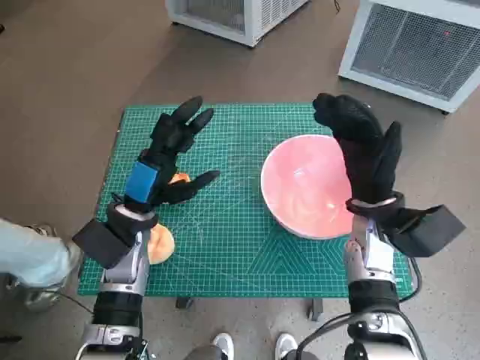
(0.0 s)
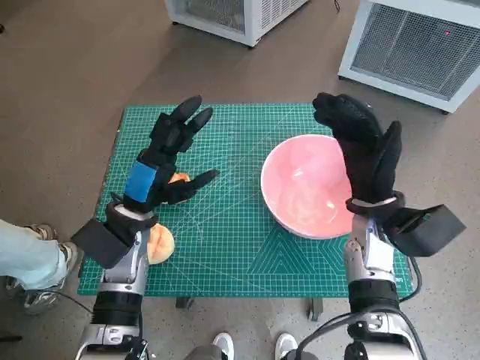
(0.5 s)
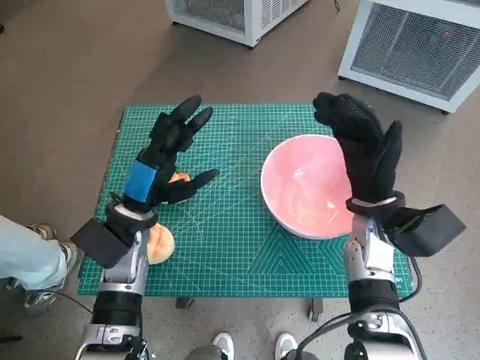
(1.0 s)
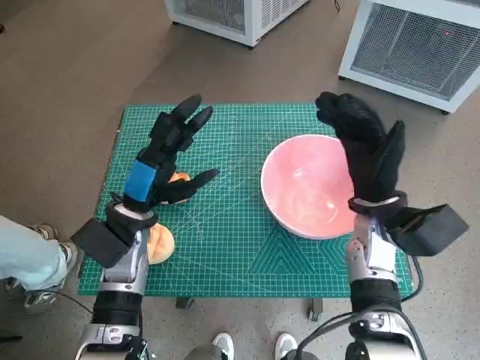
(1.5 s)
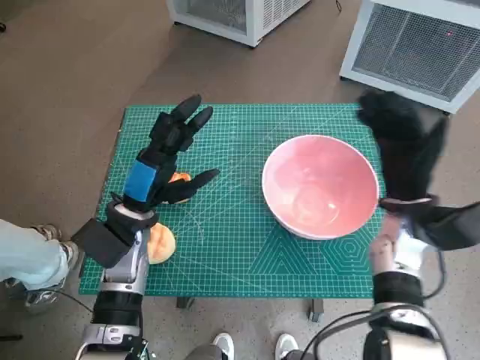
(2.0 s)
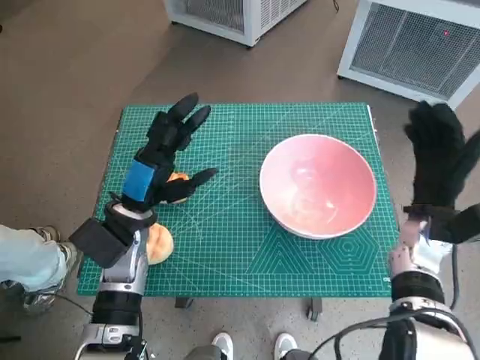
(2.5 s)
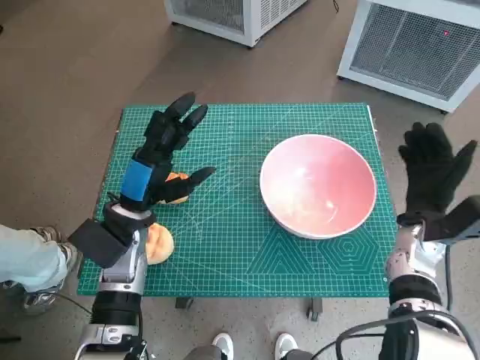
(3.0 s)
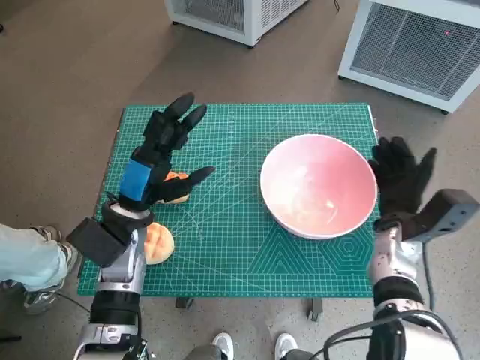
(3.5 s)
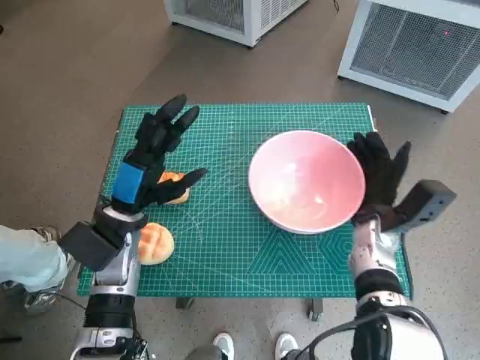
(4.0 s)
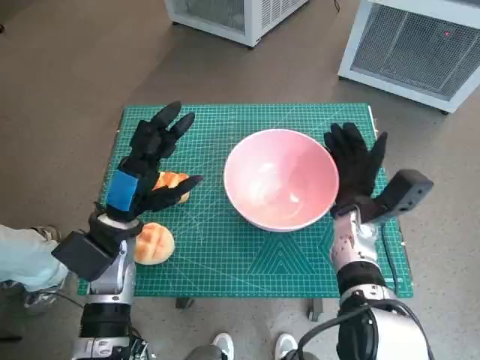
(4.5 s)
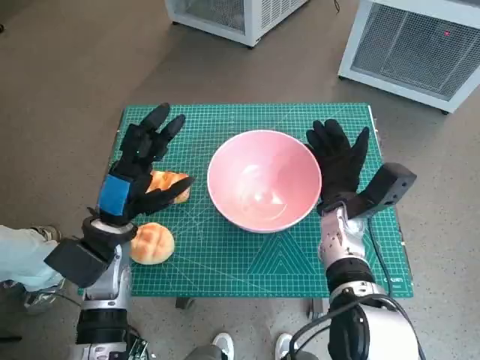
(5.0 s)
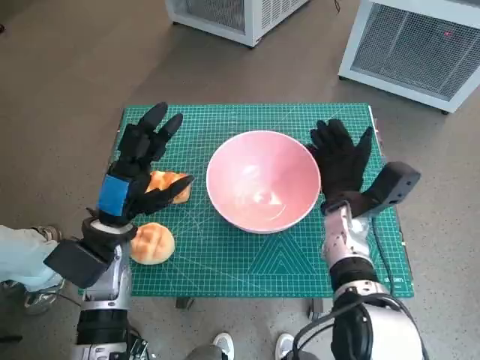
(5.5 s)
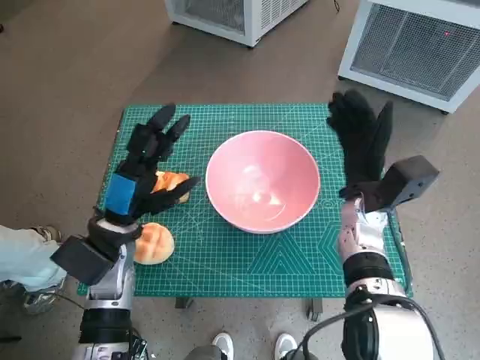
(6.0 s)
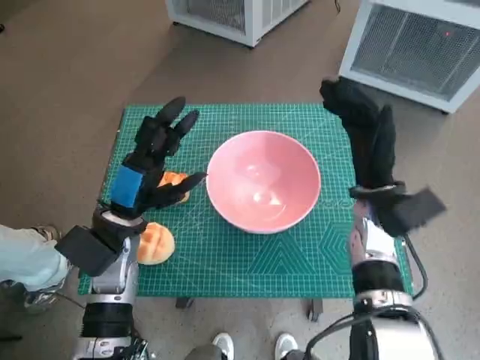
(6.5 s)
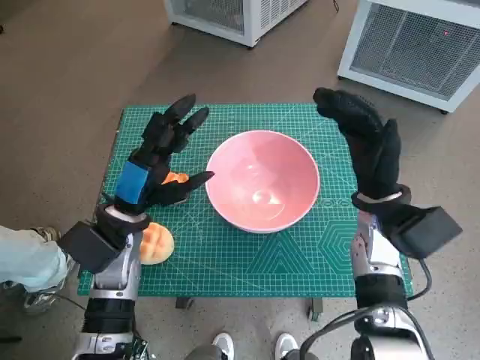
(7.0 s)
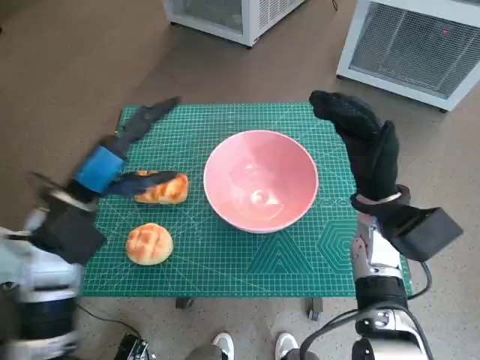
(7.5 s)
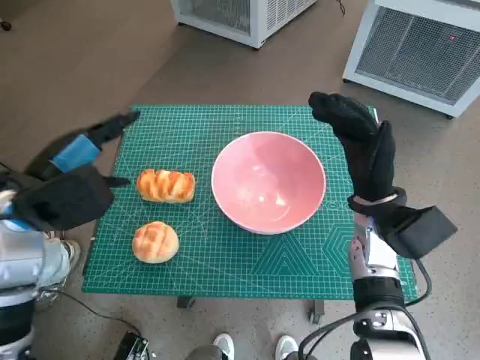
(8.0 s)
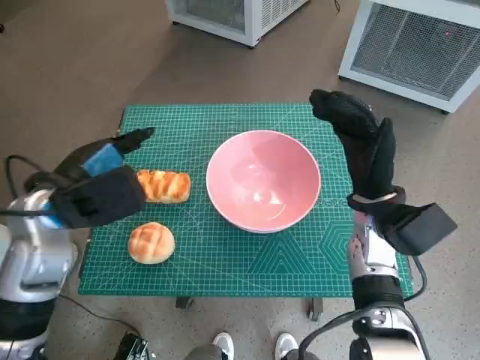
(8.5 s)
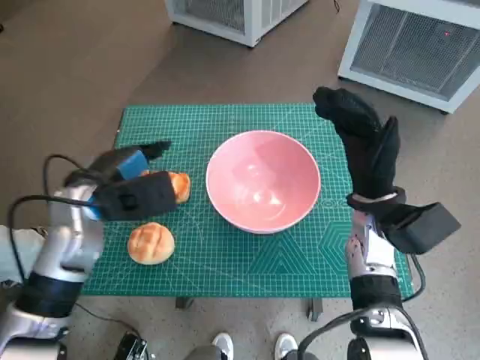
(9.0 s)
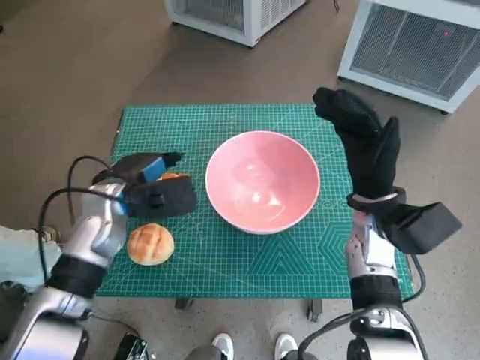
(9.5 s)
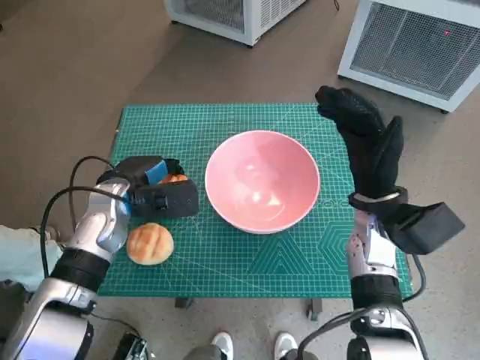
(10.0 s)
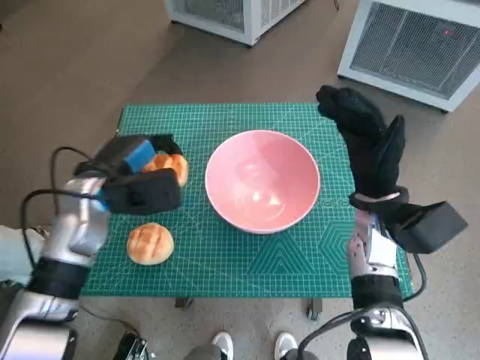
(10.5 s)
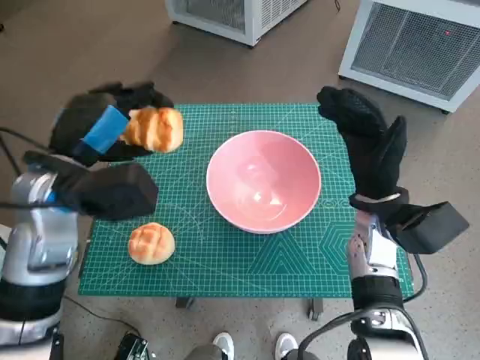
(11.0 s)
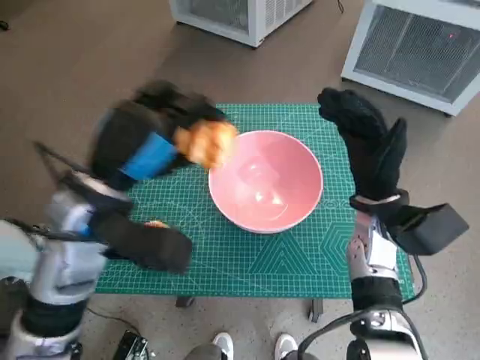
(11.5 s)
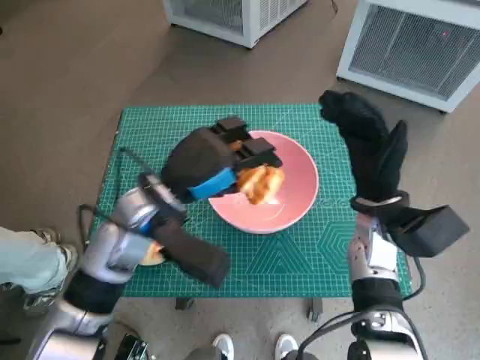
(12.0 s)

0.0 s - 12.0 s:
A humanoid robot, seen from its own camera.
Task of the whole recording: Push the bowl into the center of the table and put the bread into the bowl.
Step, 0.0 s - 5.5 s: Move the pink bowl to the center of table with right hand.
Step, 6.0 s - 9.5 s: Grasp the long bread with left hand.
2.0 s - 4.0 s: The right hand moves downward, approximately 5 cm.
4.0 s - 6.0 s: The right hand moves approximately 5 cm.
6.0 s - 8.0 s: The left hand travels upward and to the left by about 10 cm.
8.0 s - 10.0 s: The left hand goes roughly 15 cm downward, forward and to the right.
10.0 s - 12.0 s: The left hand heads to the right and upward, covering roughly 10 cm.

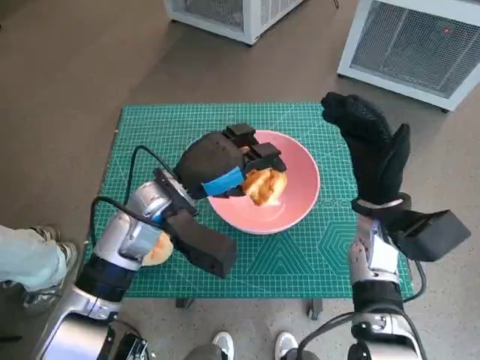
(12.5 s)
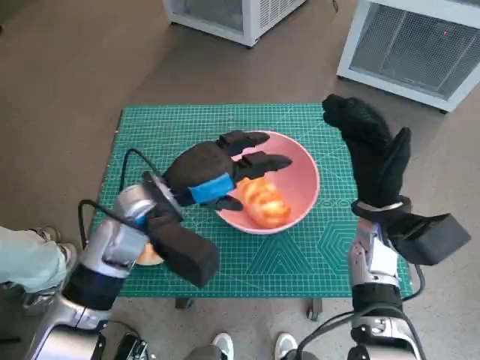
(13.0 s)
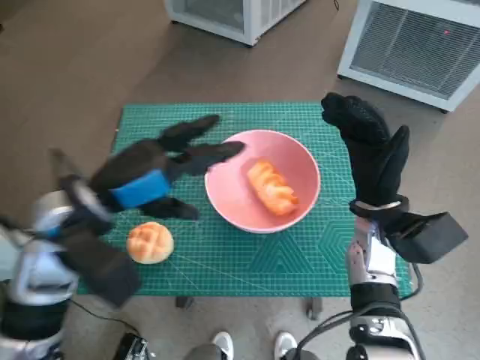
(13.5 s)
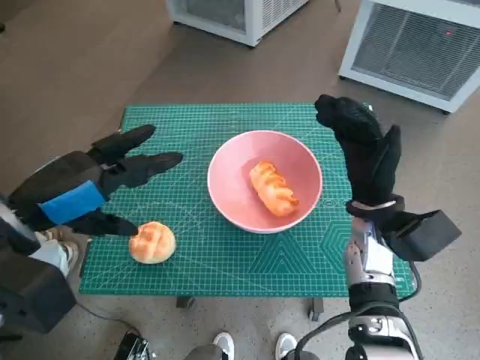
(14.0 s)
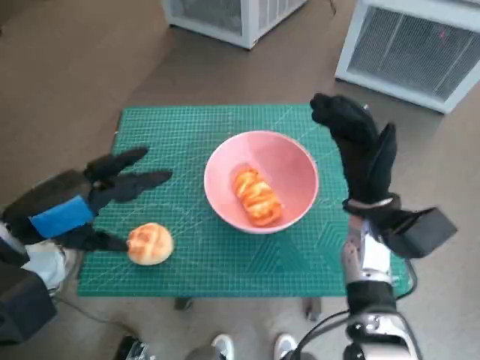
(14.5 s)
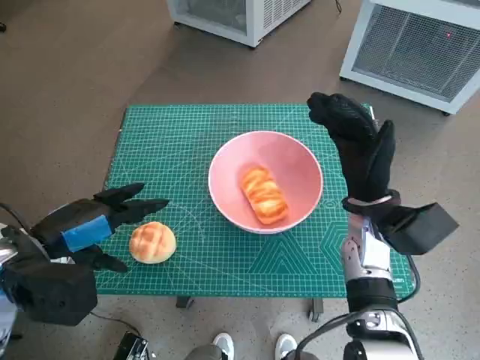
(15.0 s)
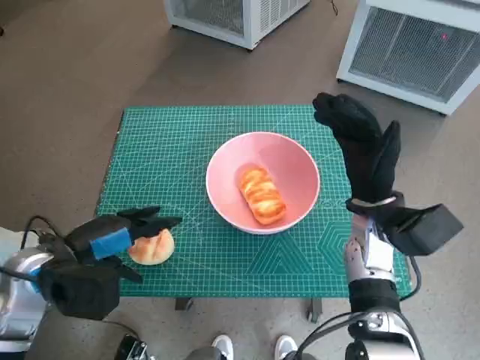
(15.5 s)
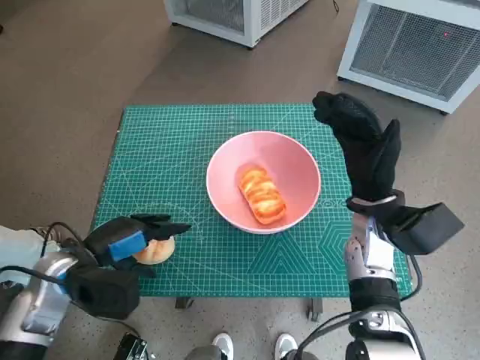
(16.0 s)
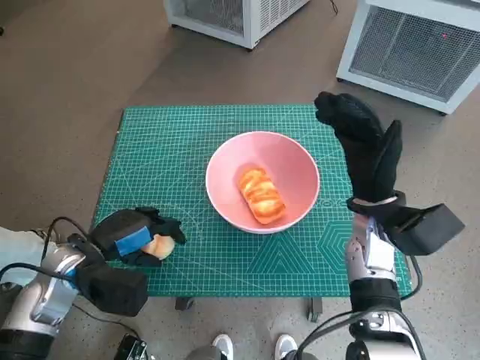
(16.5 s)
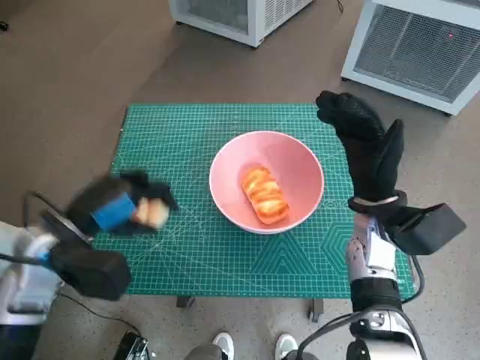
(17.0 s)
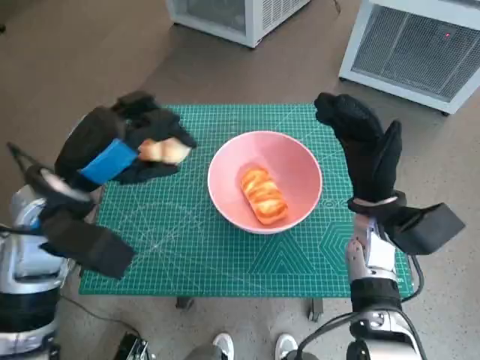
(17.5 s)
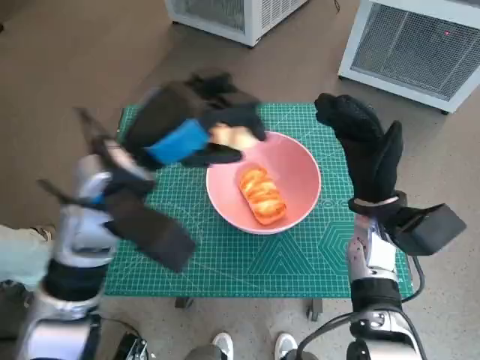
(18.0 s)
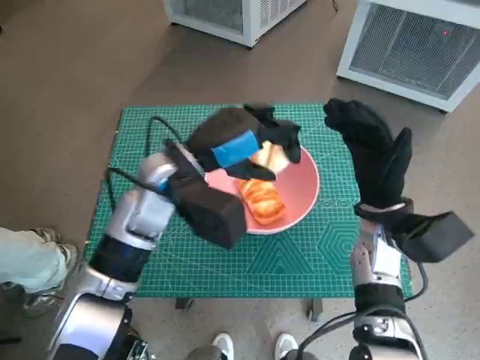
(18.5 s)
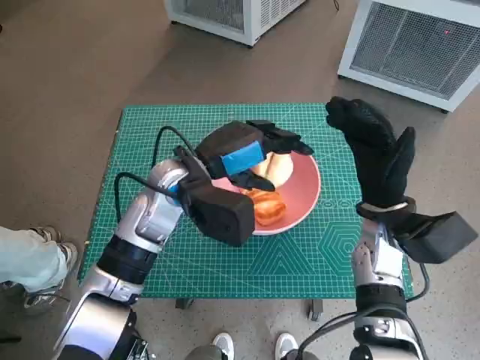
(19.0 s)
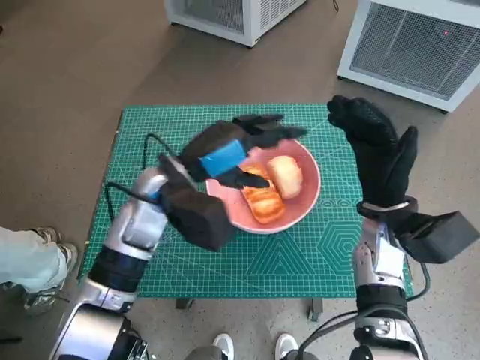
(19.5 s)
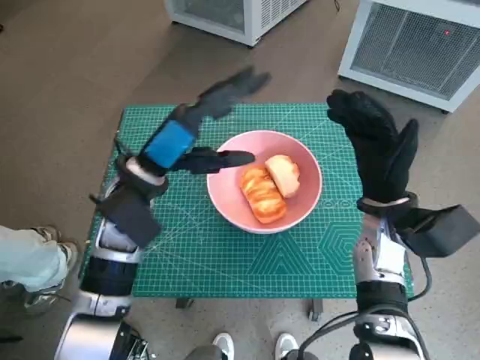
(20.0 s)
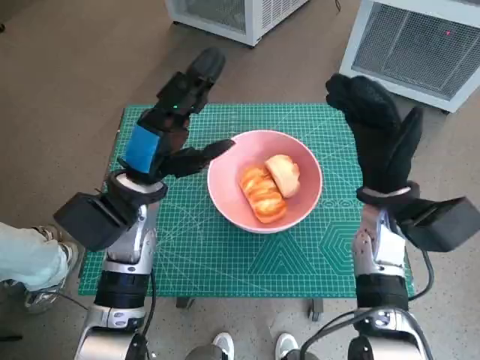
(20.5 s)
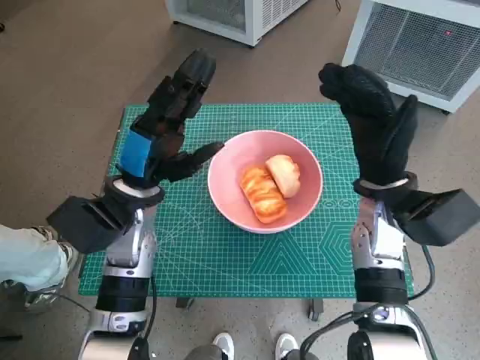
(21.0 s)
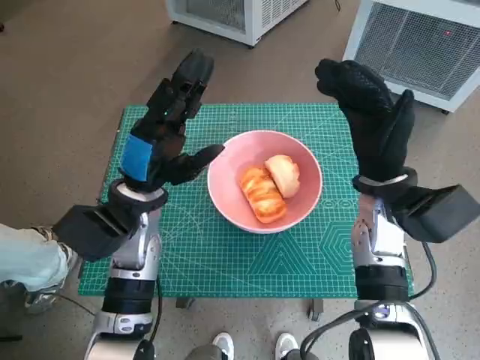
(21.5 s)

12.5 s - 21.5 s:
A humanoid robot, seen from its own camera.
Task of the whole recording: Push the bowl into the center of the table and put the bread into the bowl.
Step, 13.0 s - 16.0 s: Grasp the round bread with left hand.
Step, 16.5 s - 19.0 s: Place the round bread in pink bowl with left hand.
12.5 s - 14.5 s: The left hand shifts some 20 cm to the left, backward and upward.
14.5 s - 17.0 s: The left hand goes some 5 cm downward.
17.0 s - 19.5 s: The left hand travels to the right and forward by approximately 15 cm.
19.5 s - 21.5 s: The left hand changes place by about 5 cm.

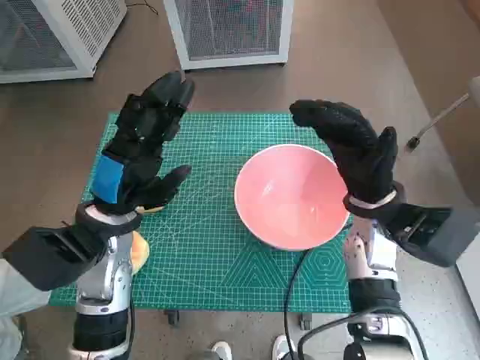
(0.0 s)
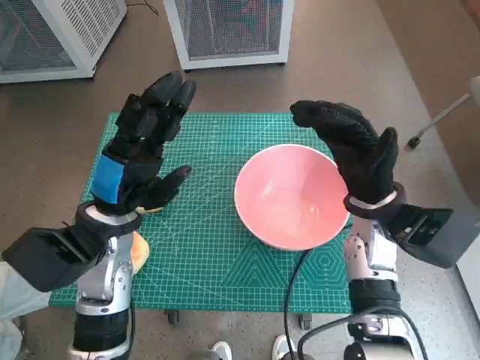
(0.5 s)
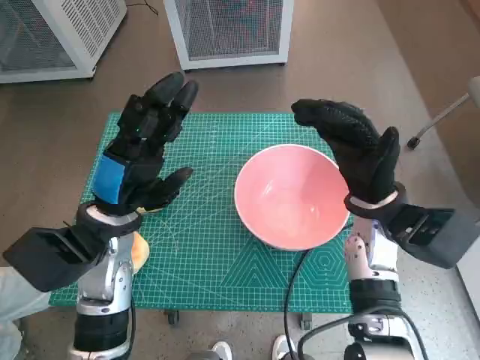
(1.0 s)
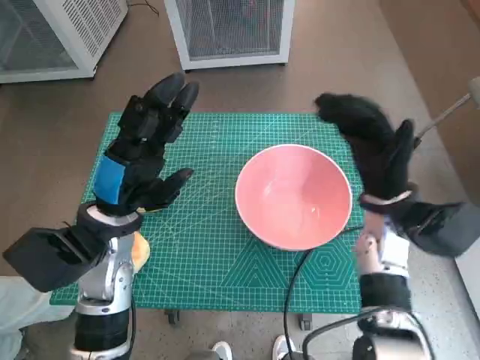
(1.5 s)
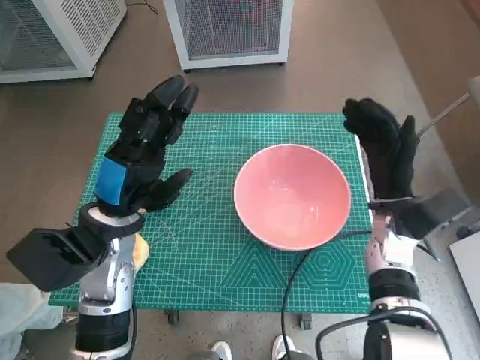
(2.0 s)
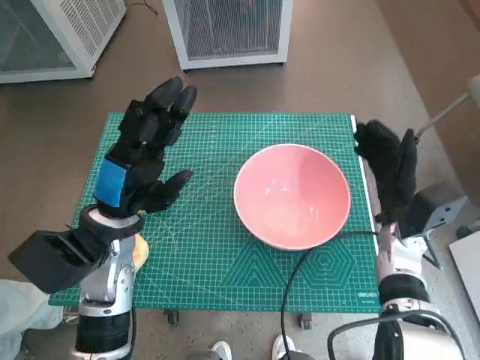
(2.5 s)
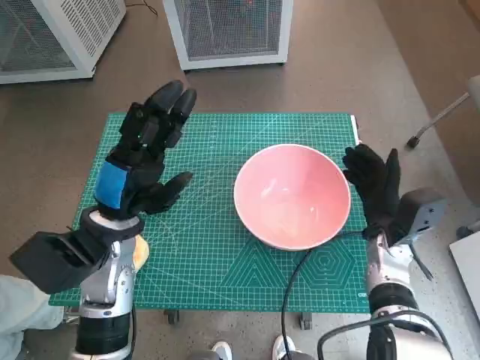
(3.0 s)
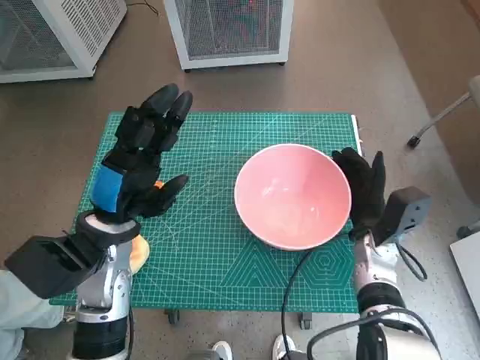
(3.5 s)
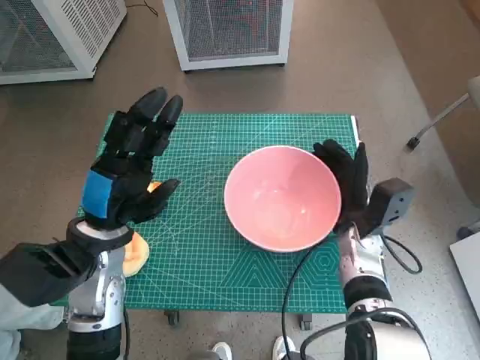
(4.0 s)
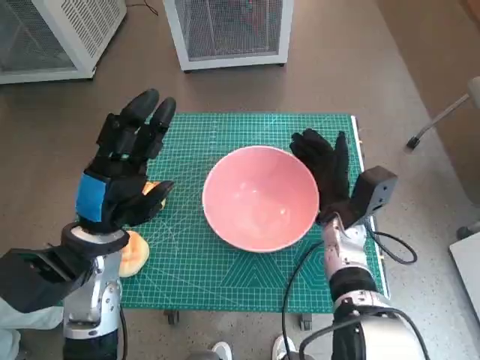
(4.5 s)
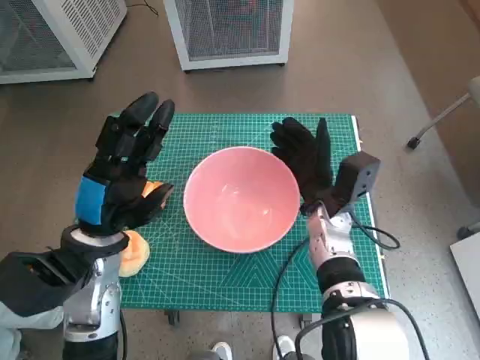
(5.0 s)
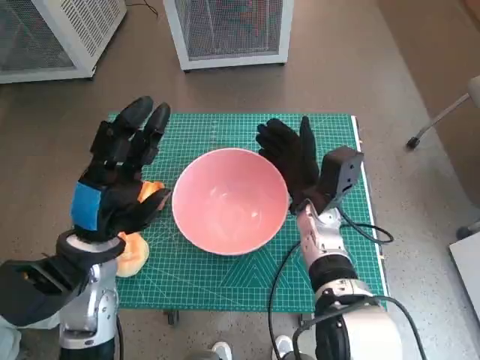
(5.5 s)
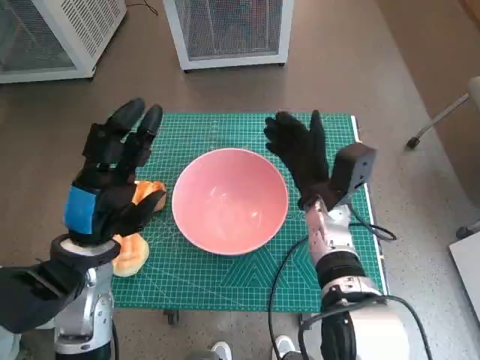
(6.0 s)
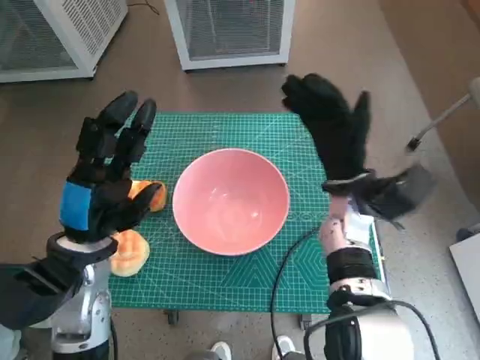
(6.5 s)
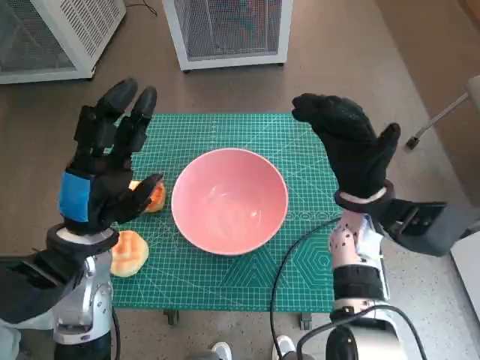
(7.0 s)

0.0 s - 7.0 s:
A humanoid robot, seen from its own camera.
Task of the whole recording: Push the bowl into the center of the table and put the bread into the bowl.
Step, 0.0 s - 5.5 s: Move the pink bowl to the center of table with right hand.
2.0 s - 3.5 s: The right hand travels downward by approximately 5 cm.
3.5 s - 5.0 s: The right hand moves to the left, roughly 10 cm.
5.0 s - 7.0 s: The right hand goes about 5 cm upward.
